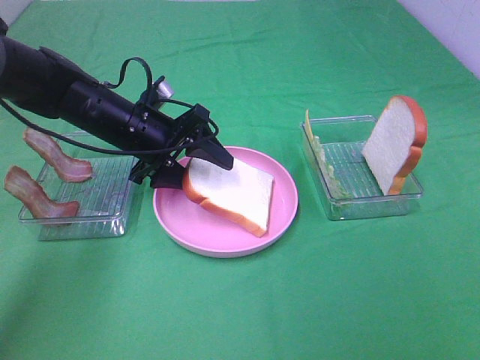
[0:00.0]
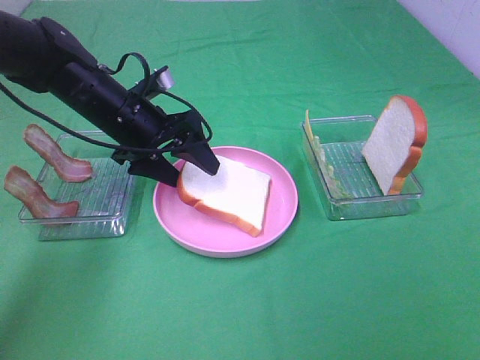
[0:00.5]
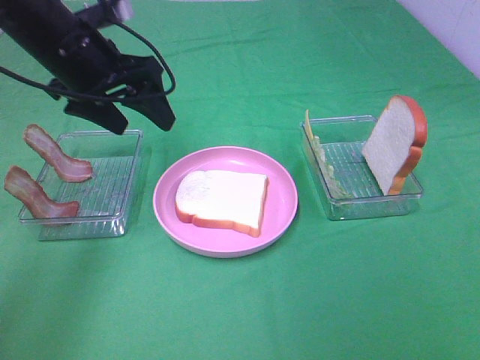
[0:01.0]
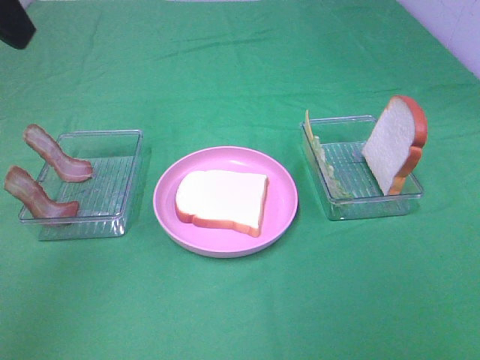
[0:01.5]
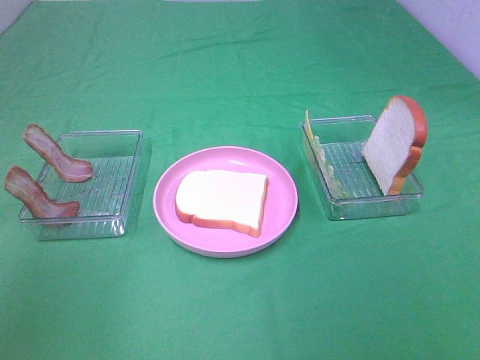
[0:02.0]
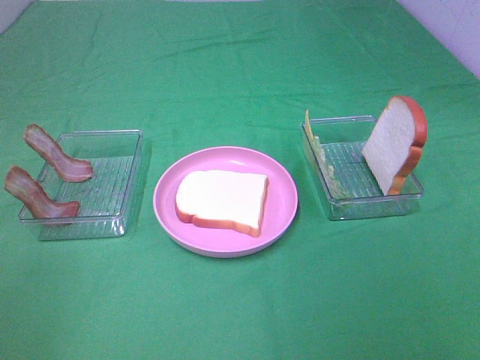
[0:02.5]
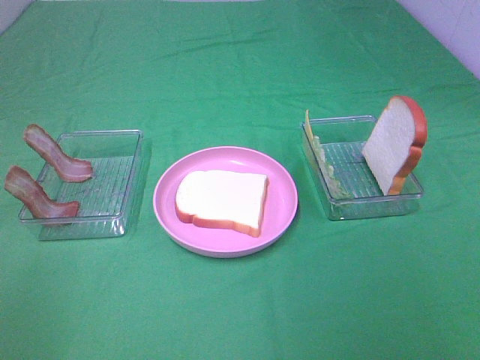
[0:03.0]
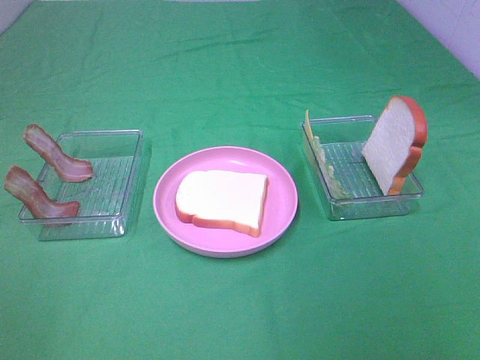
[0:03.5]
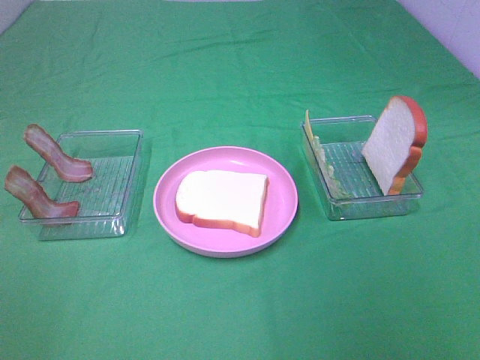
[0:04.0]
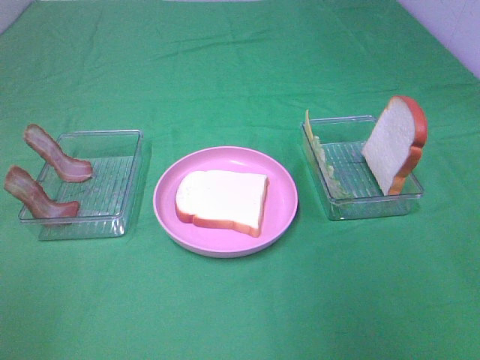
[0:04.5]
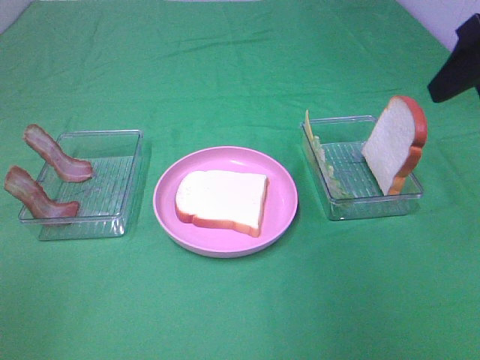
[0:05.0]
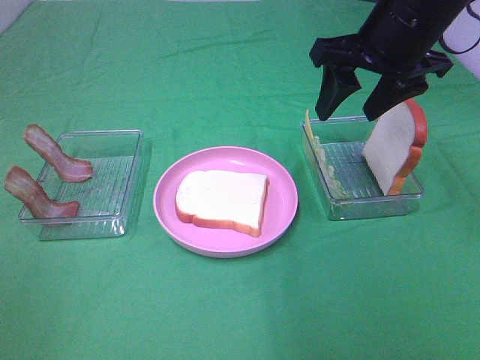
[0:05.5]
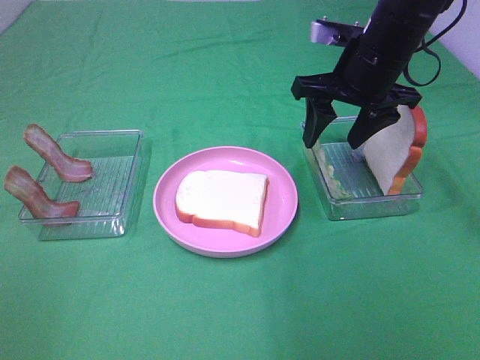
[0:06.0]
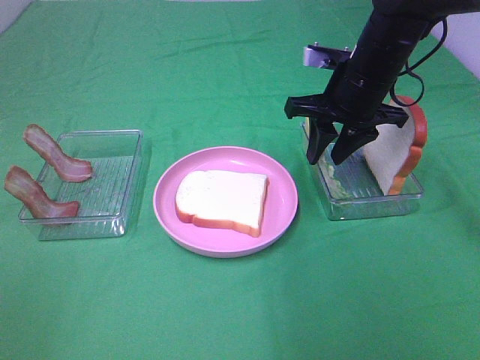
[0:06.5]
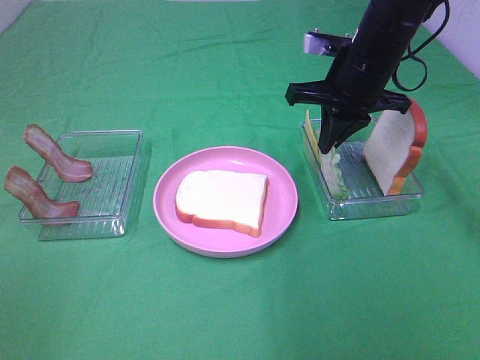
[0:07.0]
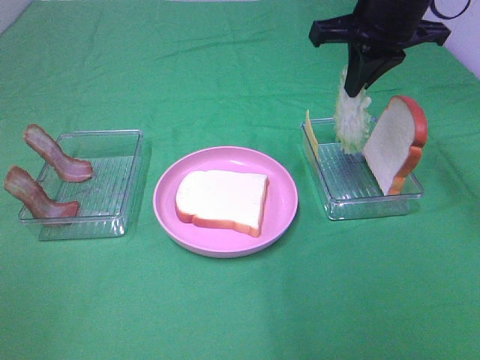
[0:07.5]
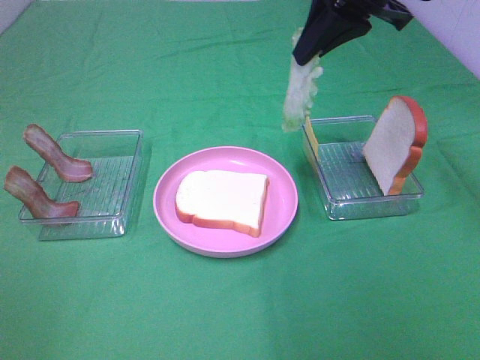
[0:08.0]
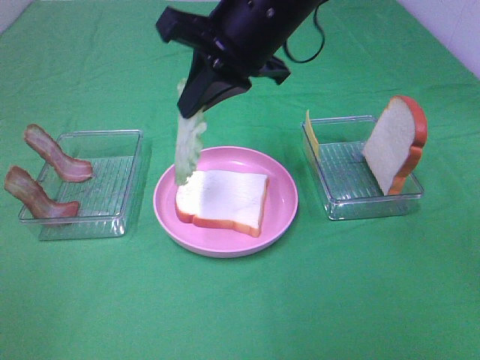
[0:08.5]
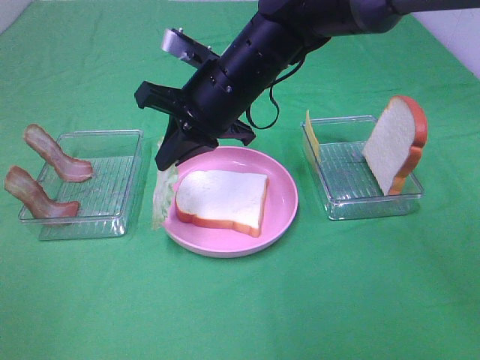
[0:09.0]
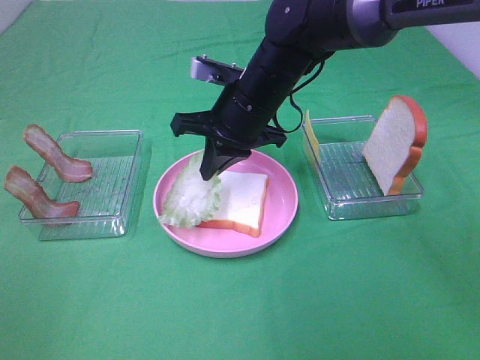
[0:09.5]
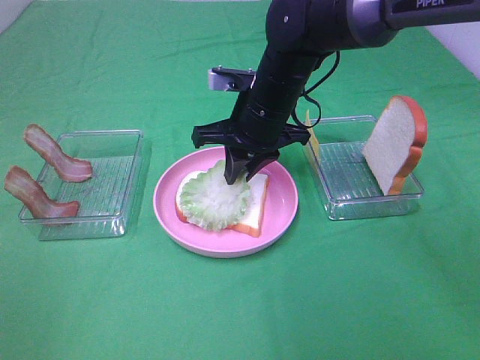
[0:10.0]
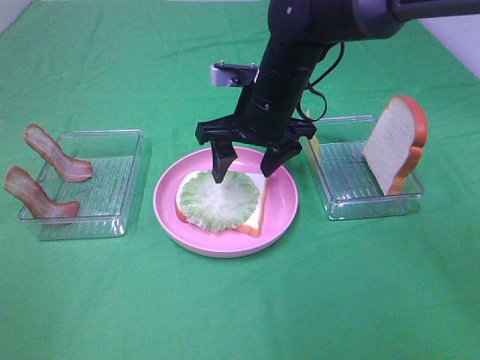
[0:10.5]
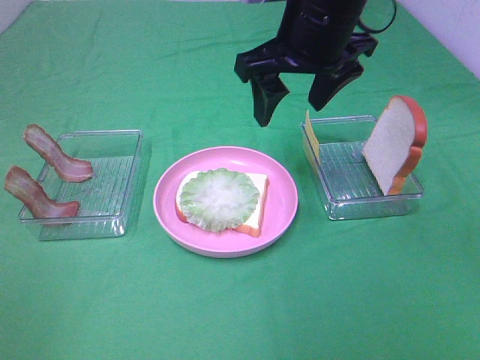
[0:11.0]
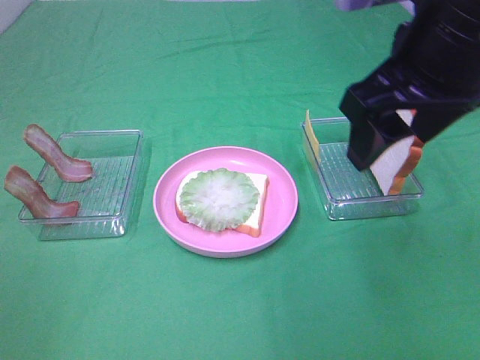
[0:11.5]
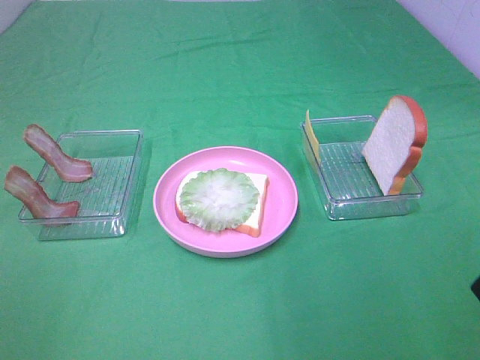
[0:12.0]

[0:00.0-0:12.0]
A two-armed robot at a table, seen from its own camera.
Task of the whole recording: Make sandwiches.
Step, 0:01.0 to 0:06.5: Right hand:grab the lettuce slice.
Step, 0:07.0 to 0:10.5: Right hand:place the lettuce slice on the bread slice.
0:00.0 to 0:02.0: The left gripper travels upward, backward and to the left by about 40 cm.
0:04.0 to 0:06.0: The right gripper is displaced forward by roughly 30 cm.
0:06.0 to 0:08.0: The right gripper goes some 10 cm upward, and closes its fingers.
0:08.0 to 0:10.0: The right gripper goes roughly 20 cm downward and to the left, and opens.
0:10.0 to 0:12.0: The right gripper shifts about 35 cm backward, to the right and upward, and opens up.

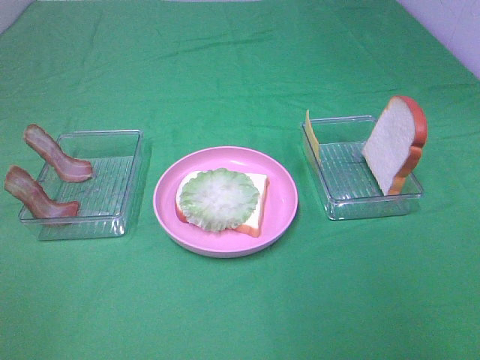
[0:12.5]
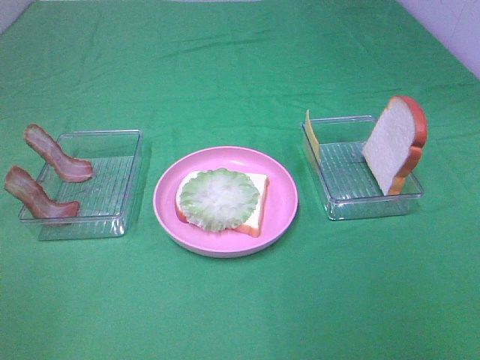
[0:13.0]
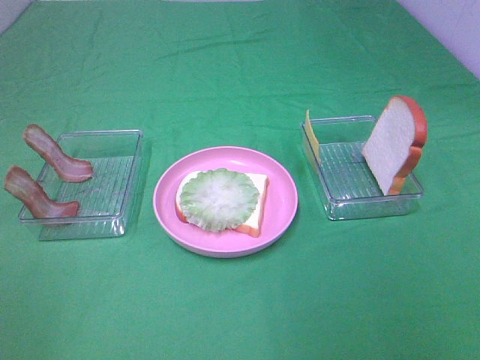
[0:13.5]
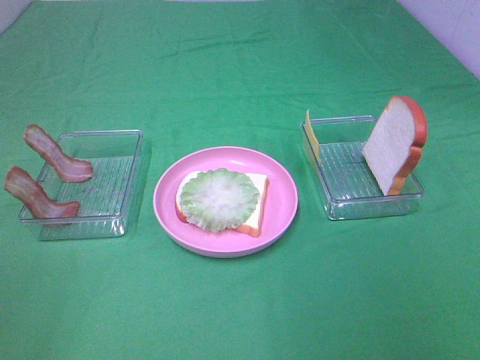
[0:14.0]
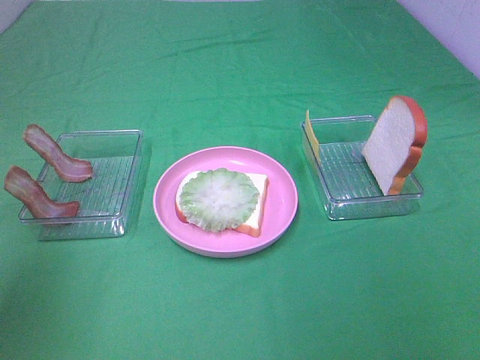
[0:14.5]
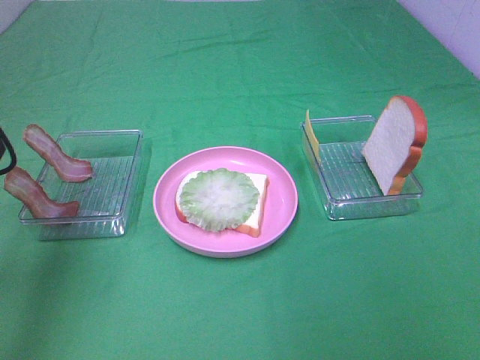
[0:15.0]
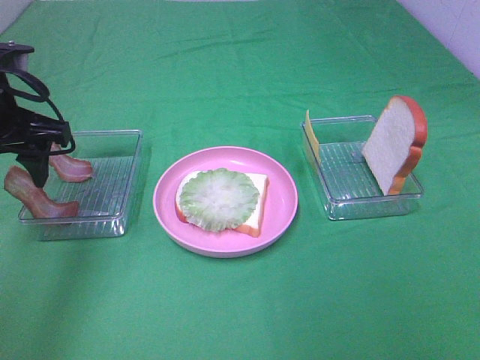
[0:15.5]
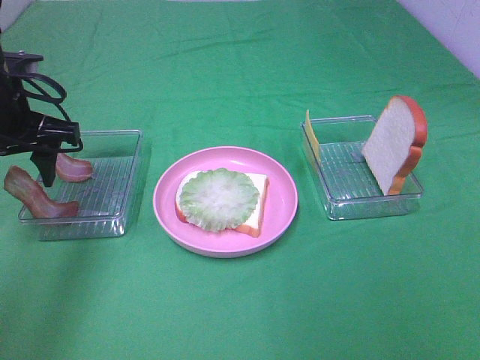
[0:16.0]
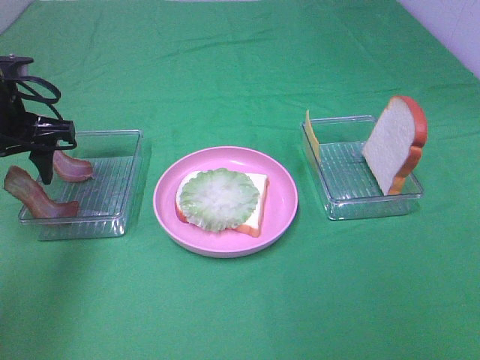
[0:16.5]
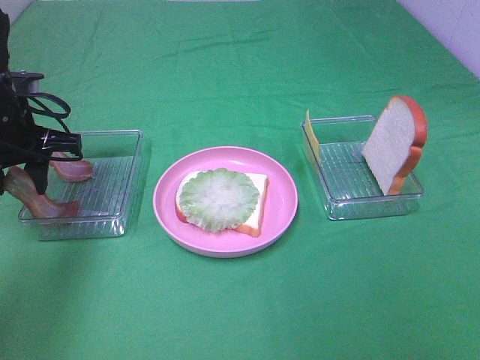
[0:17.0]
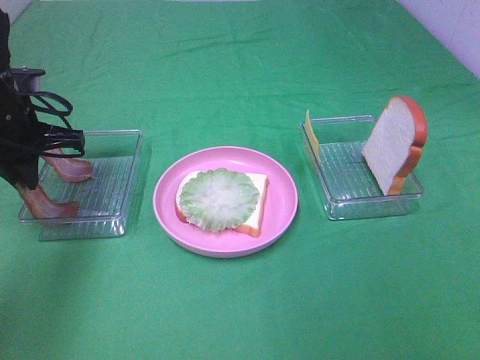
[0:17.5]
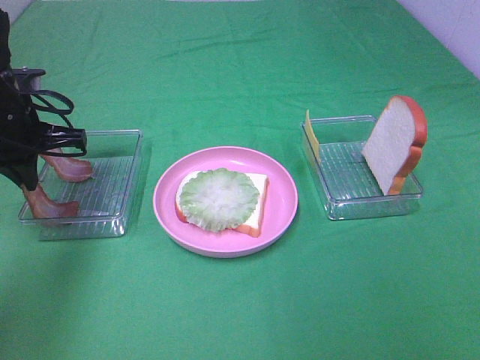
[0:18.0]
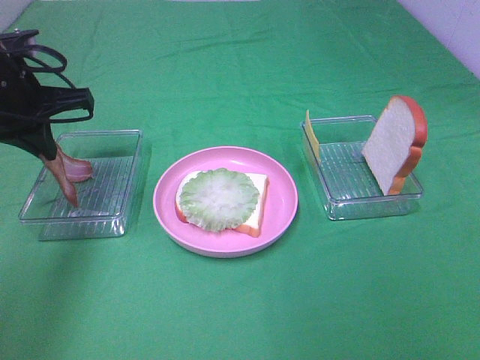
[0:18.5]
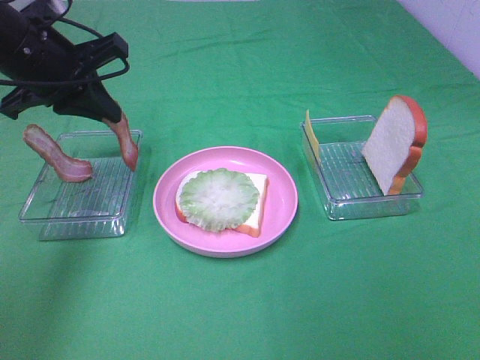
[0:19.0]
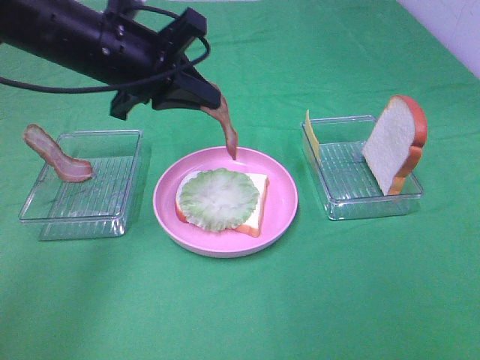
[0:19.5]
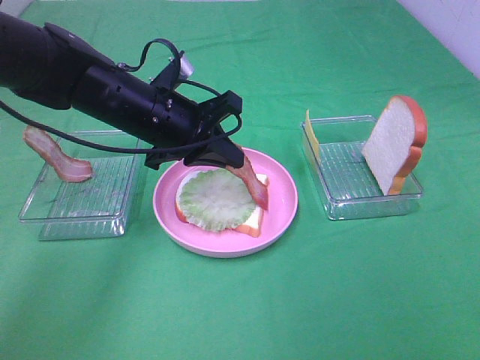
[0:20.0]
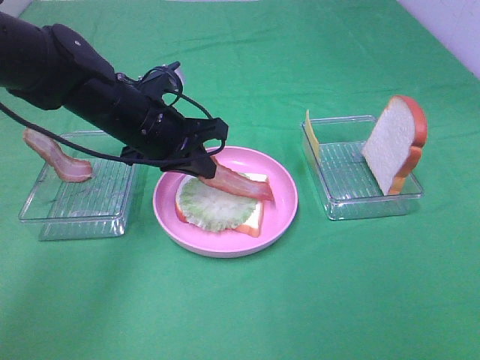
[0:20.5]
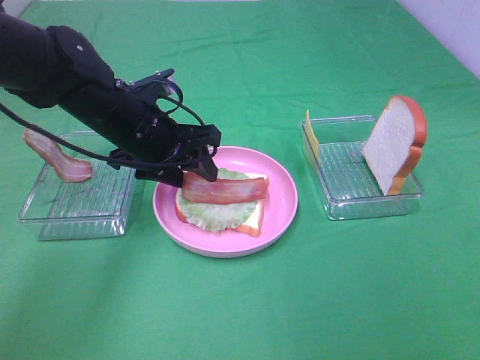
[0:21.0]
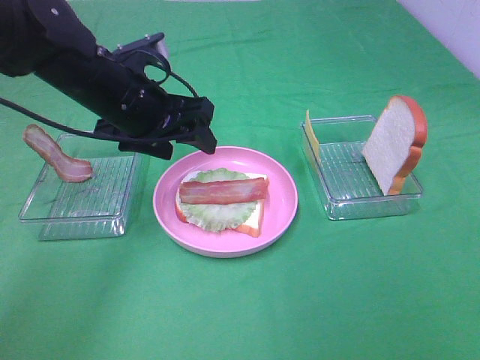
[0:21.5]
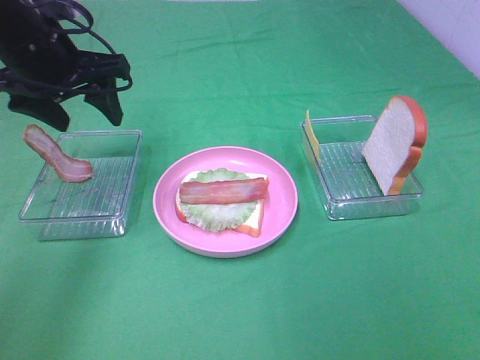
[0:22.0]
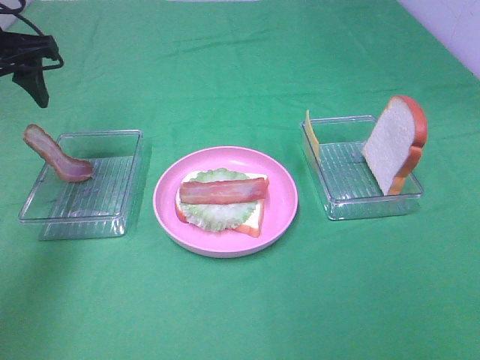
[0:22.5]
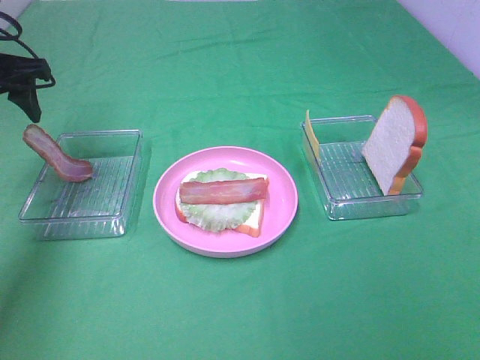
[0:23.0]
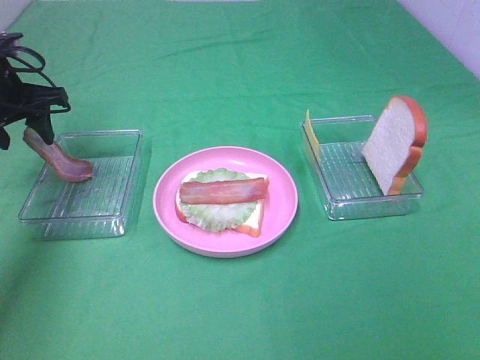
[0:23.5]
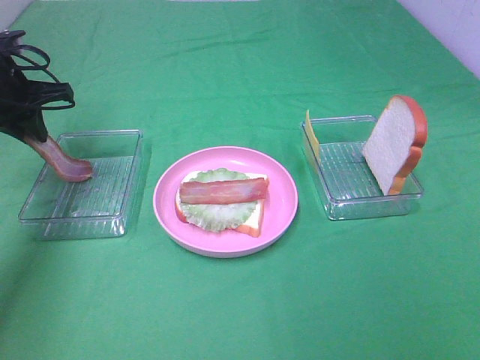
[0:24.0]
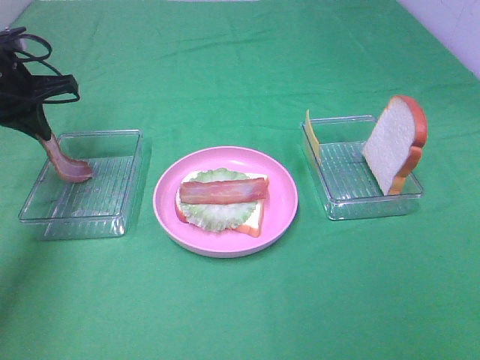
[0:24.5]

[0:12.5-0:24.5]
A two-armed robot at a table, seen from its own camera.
Task of the whole recording: Make sandwiches.
Step, 0:12.5 to 0:18.0: Left hand:grab the bacon.
Step, 0:18.5 to 0:21.0: Left hand:place bacon on lettuce slice.
Step, 0:21.5 to 0:24.0: Left hand:grab the bacon.
0:12.5 to 0:14.5: The left gripper moves forward, about 15 cm.
0:14.5 to 0:16.5: The left gripper travels forward and downward by about 25 cm.
0:16.5 to 0:18.5: The left gripper closes up.
0:18.5 to 0:20.5: The left gripper heads to the right and downward, covering some 15 cm.
0:20.5 to 0:22.5: The left gripper goes some 20 cm to the left and upward, and opens.
0:22.5 to 0:24.5: The left gripper travels downward by some 10 cm, and closes its fingers.

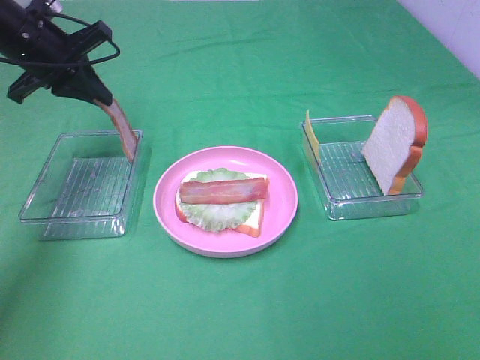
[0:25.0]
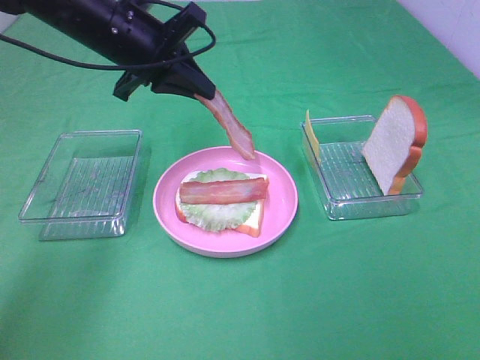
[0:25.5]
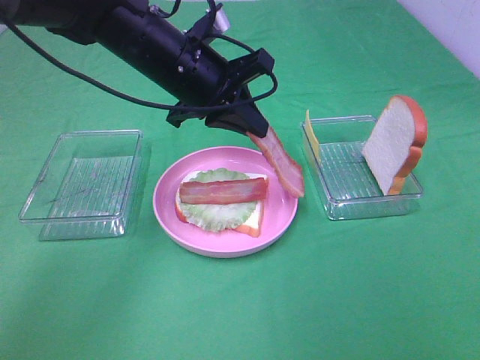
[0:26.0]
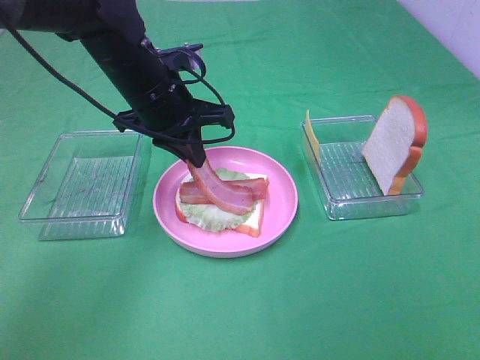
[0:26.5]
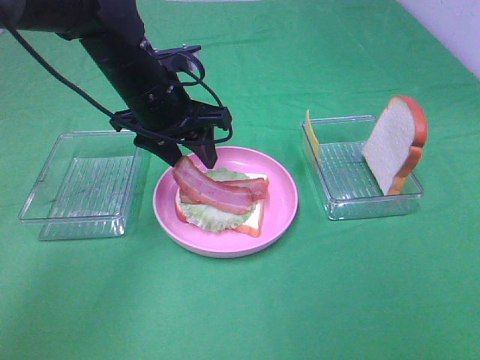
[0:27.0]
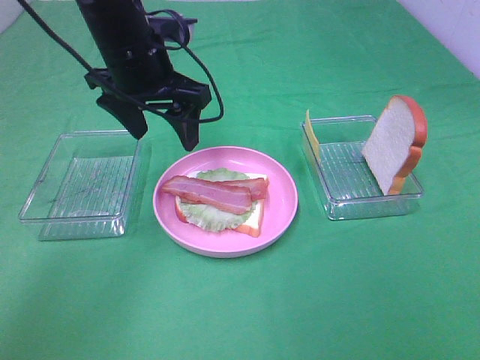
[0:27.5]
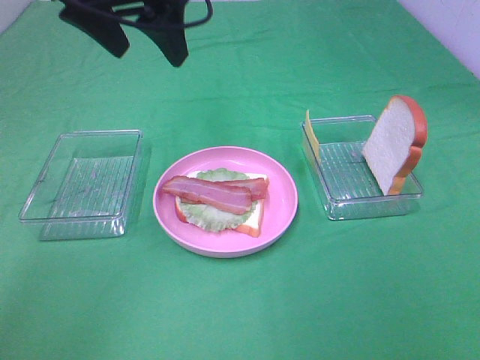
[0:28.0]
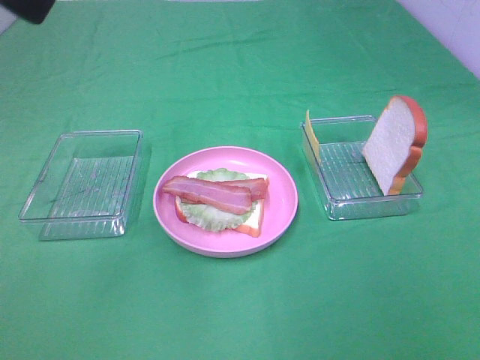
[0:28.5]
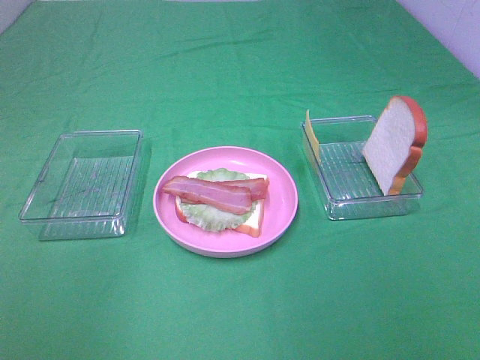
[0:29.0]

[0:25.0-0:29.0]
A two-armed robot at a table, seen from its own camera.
Task of the whole recording: Make sandwiches.
Step, 0:25.0 to 0:27.0: Left hand:place bacon on bacon.
0:25.0 to 0:27.0: The left gripper travels to the right by roughly 15 cm, and opens.
0:27.0 to 0:29.0: The left gripper travels backward, upward and to the left by approximately 40 cm.
